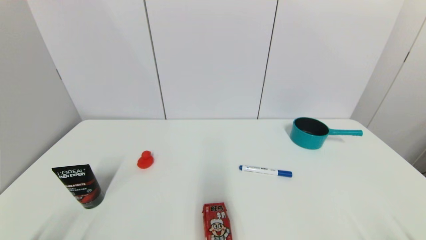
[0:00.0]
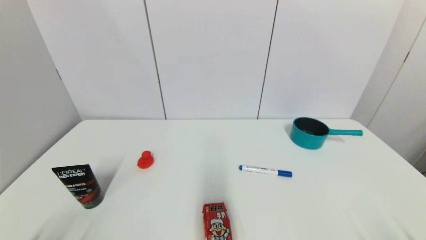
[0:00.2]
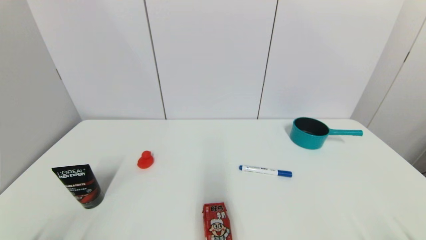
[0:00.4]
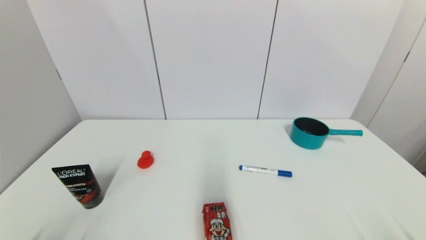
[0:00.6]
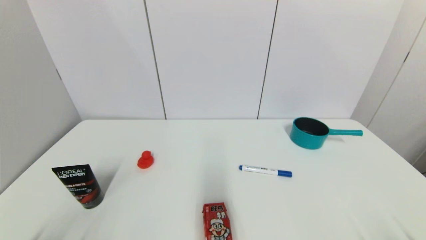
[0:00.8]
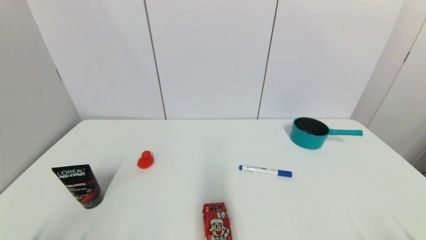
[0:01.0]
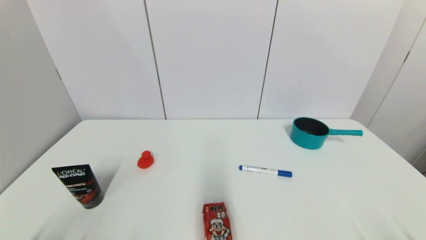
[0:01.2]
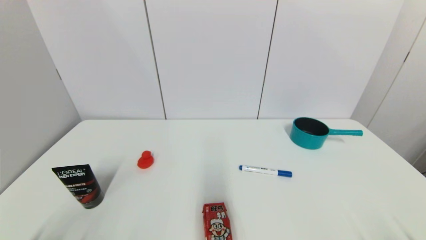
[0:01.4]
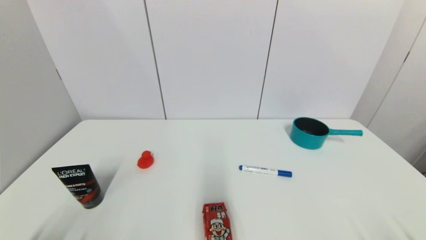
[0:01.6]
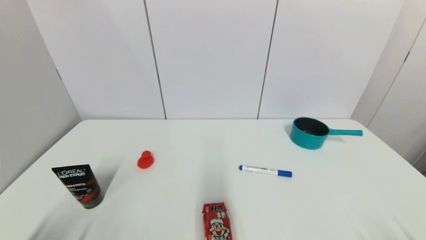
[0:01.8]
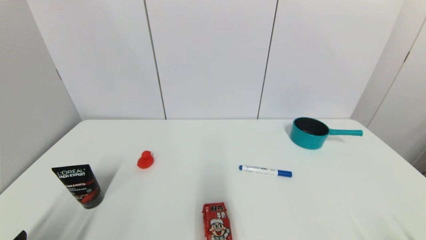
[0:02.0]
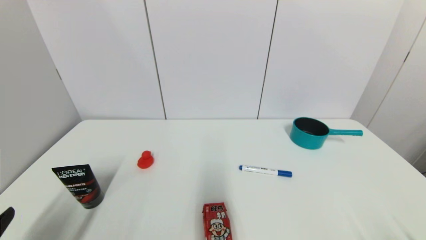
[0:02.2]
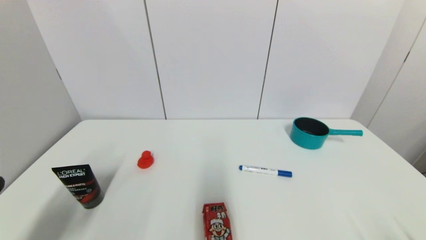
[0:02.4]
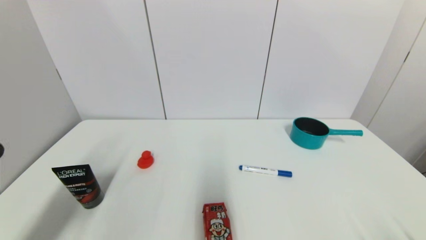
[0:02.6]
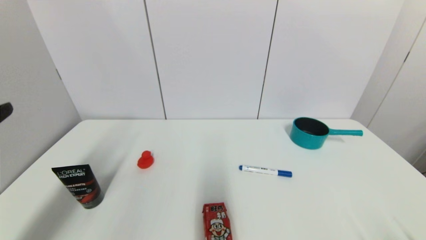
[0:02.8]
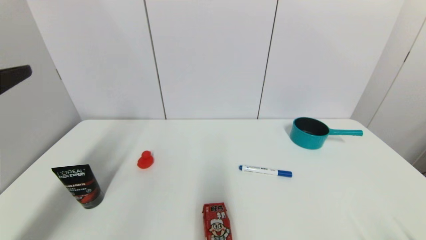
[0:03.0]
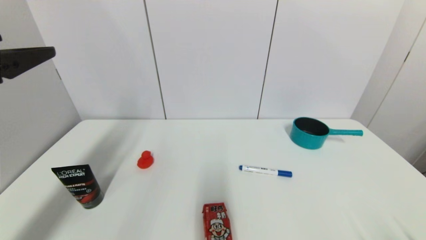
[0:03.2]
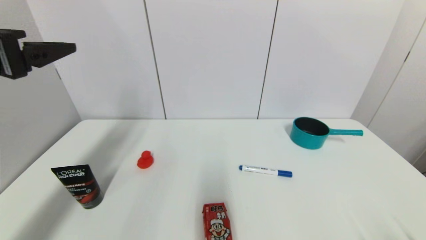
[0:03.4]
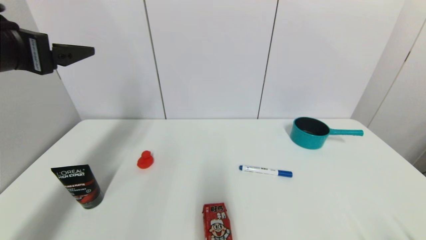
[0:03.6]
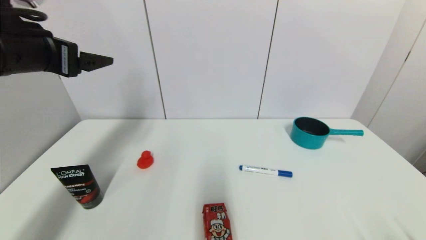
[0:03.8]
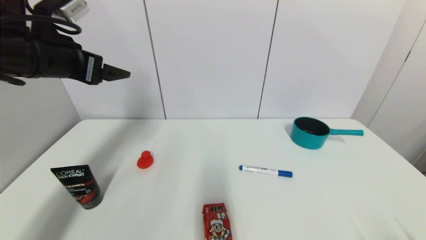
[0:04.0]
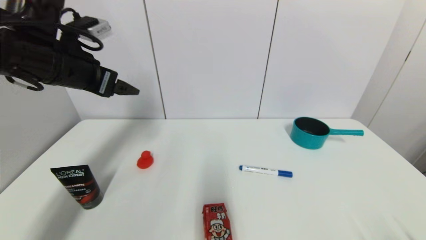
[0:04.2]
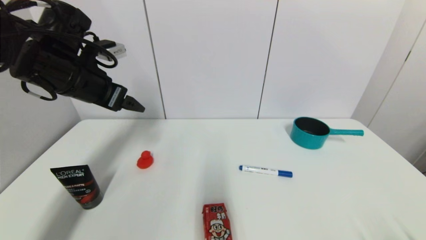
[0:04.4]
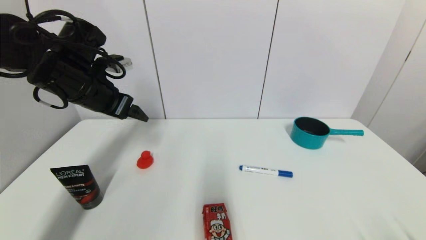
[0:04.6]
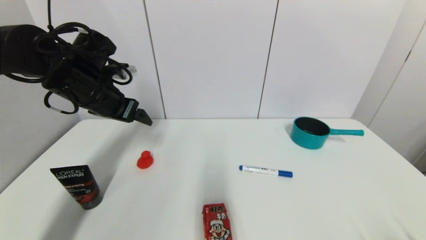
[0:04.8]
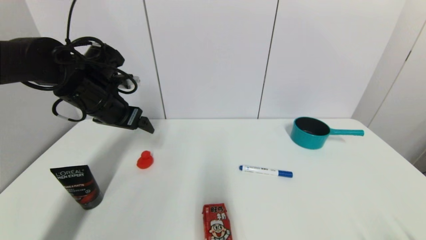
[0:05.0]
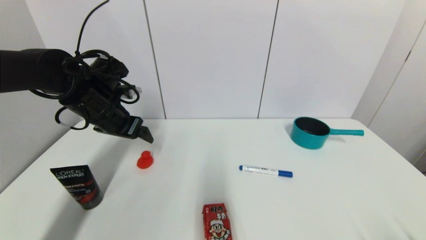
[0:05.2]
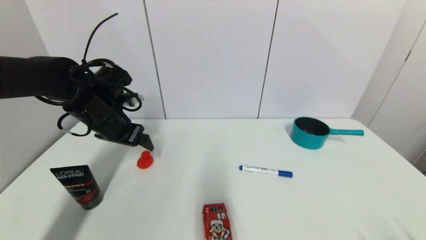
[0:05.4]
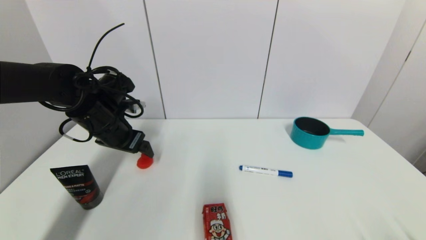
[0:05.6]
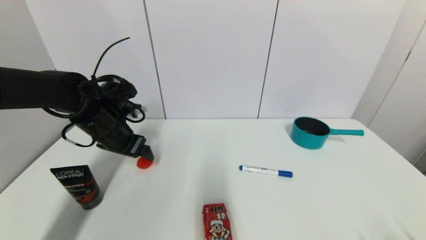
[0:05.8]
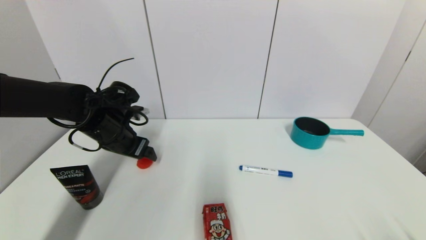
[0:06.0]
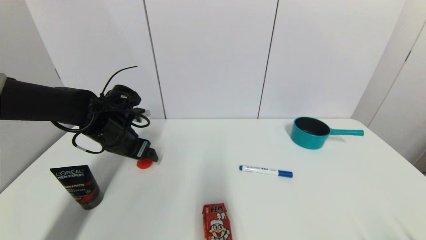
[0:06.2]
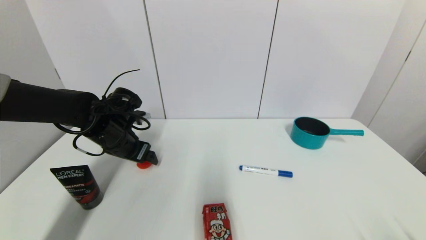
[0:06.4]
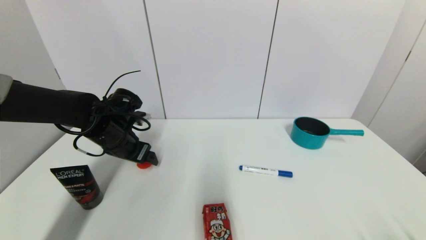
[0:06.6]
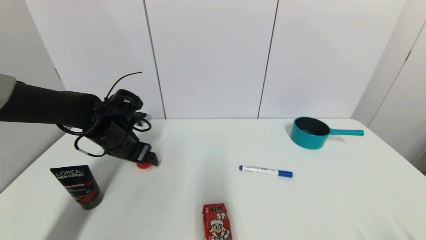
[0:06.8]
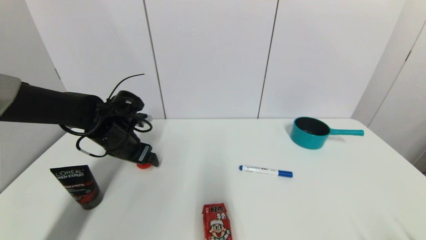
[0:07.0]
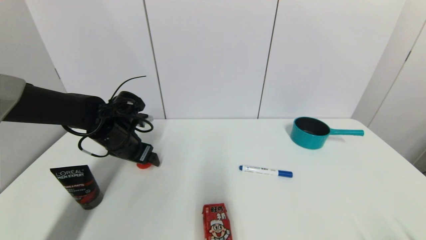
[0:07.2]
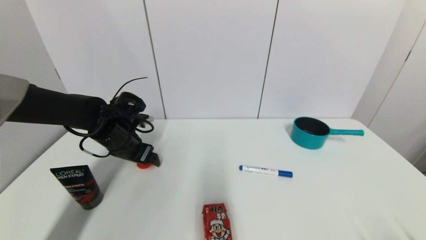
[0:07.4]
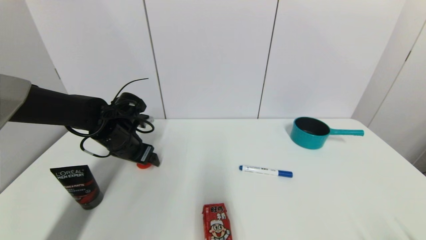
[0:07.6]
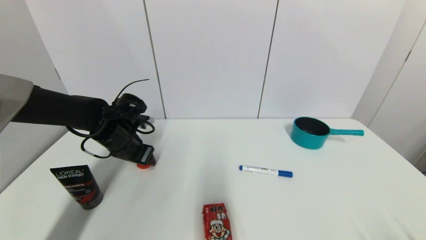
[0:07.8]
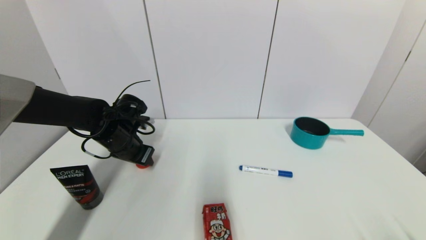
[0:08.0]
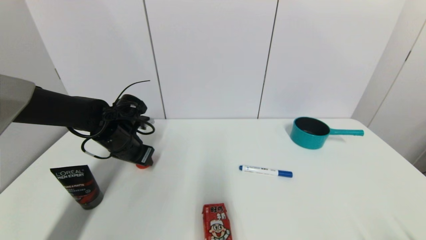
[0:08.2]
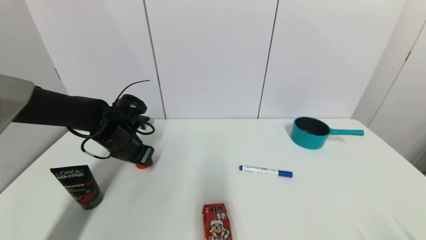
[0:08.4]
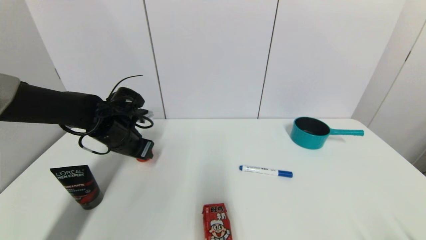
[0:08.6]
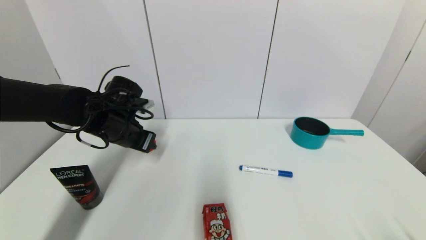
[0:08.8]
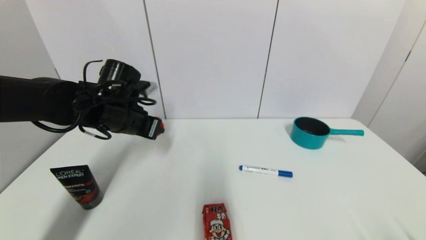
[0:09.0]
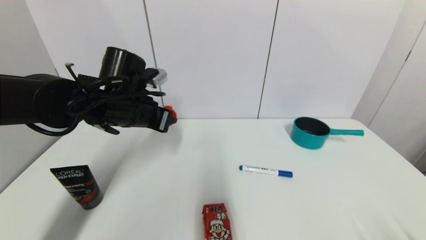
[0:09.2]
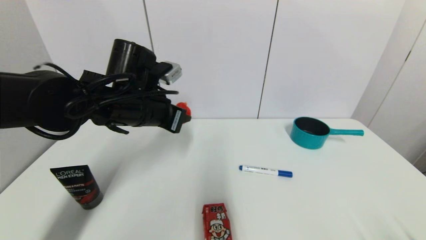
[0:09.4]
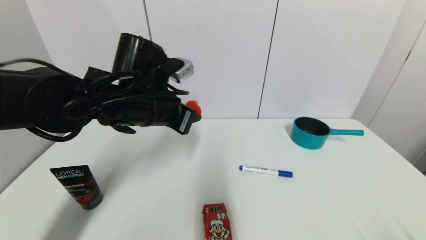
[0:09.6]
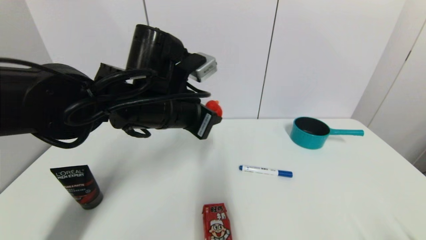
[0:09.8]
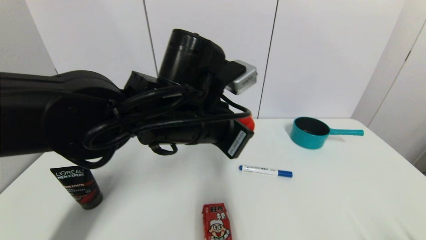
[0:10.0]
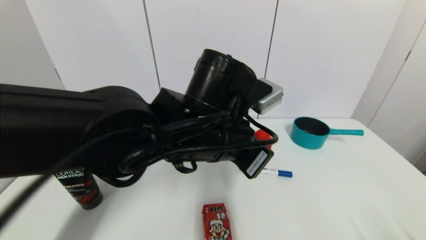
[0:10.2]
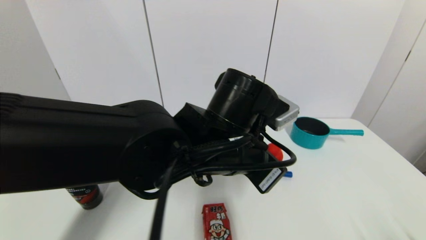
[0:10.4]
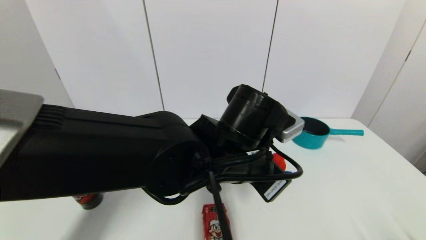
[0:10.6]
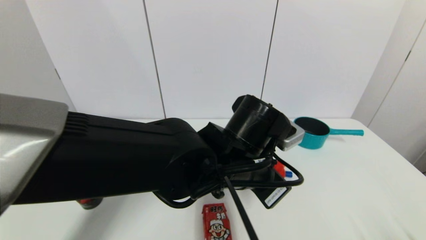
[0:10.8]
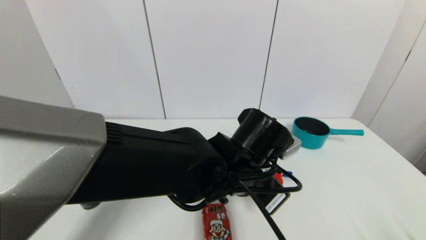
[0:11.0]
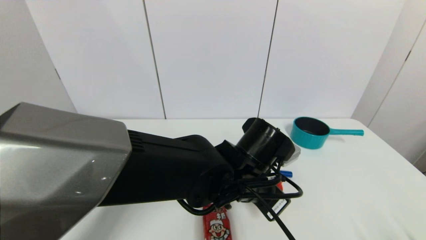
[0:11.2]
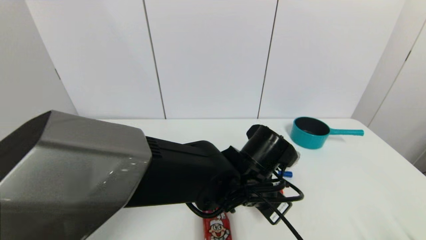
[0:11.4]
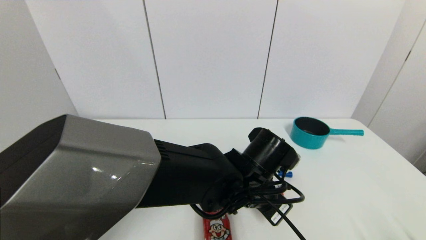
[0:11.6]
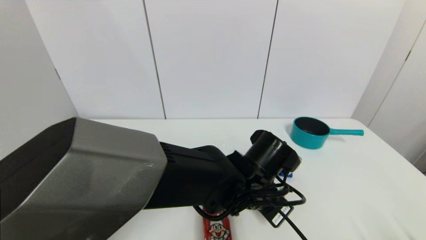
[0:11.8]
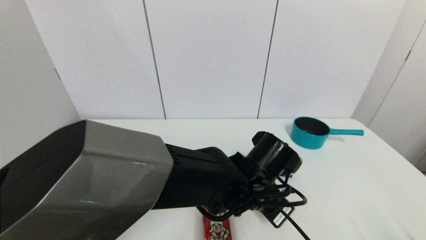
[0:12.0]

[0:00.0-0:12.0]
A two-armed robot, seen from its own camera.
Step, 0:02.0 to 0:08.8: Grasp the red duck with left gripper.
0:00.0 to 0:01.6: The two grippers keep their place.
0:01.6 to 0:03.0: The left gripper goes roughly 25 cm upward and forward.
0:03.0 to 0:04.4: The left gripper is displaced forward by approximately 20 cm.
0:04.4 to 0:06.0: The left gripper moves downward, roughly 15 cm.
0:06.0 to 0:07.6: The grippers move only a little.
0:07.6 to 0:09.0: The left gripper travels upward by roughly 5 cm, and closes up.
0:09.0 to 0:10.4: The left gripper is displaced to the right and backward by some 25 cm.
0:10.4 to 0:12.0: The left gripper is displaced downward and to the right by about 10 cm.

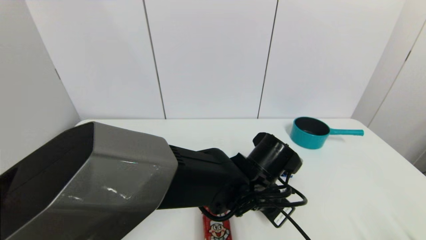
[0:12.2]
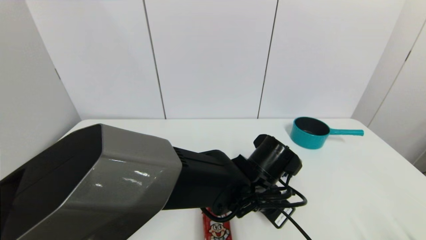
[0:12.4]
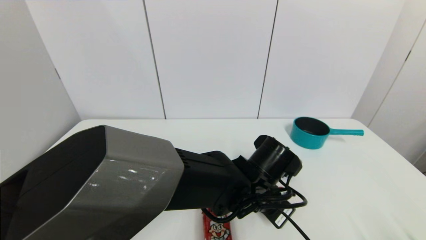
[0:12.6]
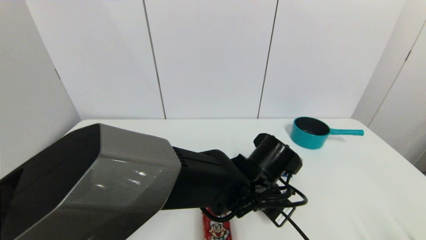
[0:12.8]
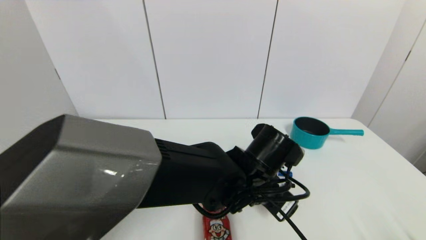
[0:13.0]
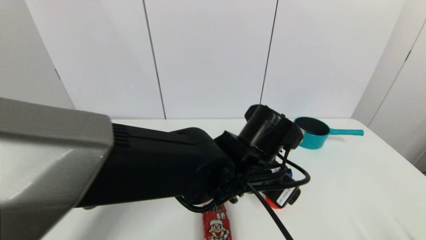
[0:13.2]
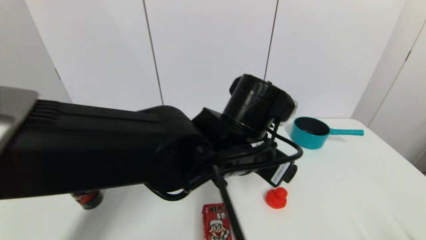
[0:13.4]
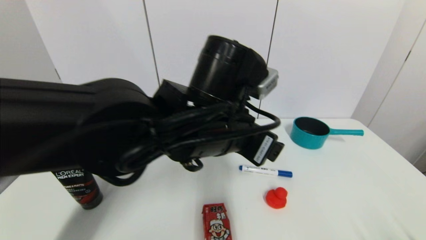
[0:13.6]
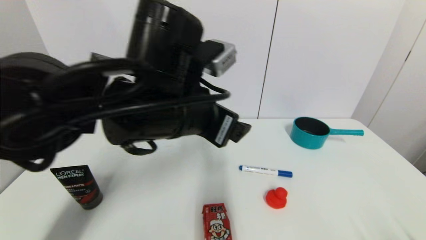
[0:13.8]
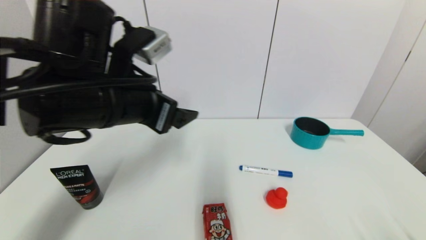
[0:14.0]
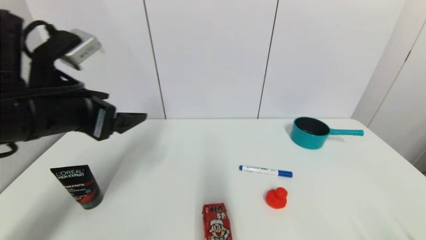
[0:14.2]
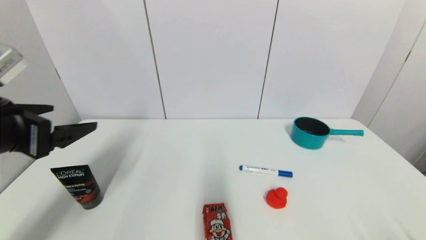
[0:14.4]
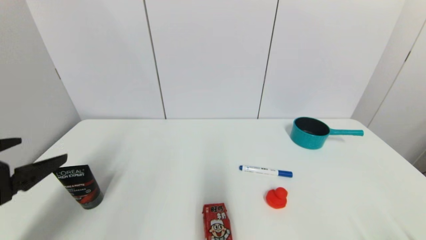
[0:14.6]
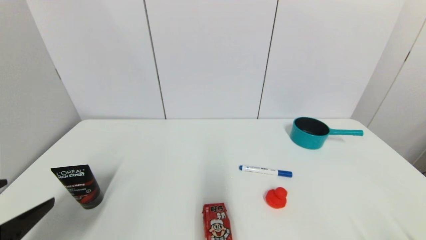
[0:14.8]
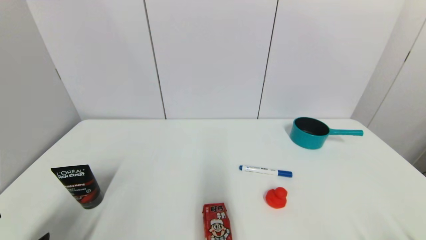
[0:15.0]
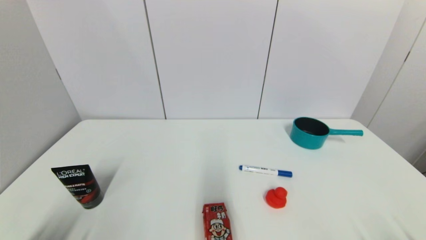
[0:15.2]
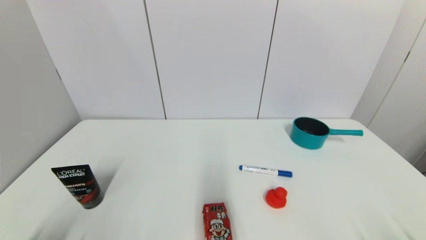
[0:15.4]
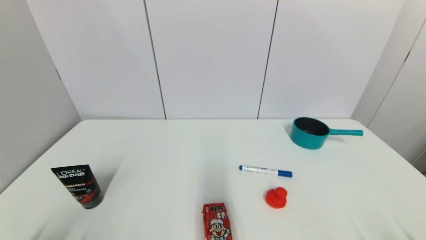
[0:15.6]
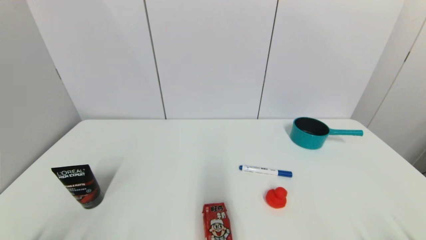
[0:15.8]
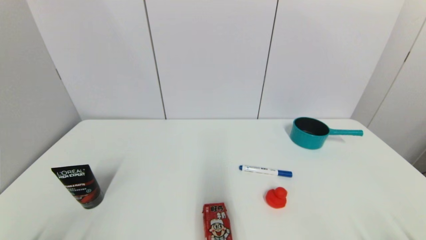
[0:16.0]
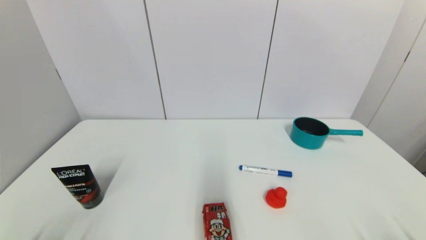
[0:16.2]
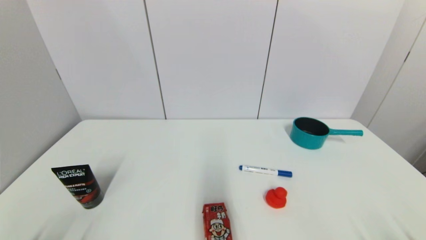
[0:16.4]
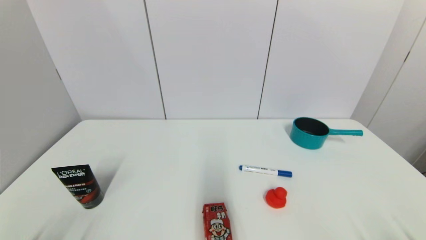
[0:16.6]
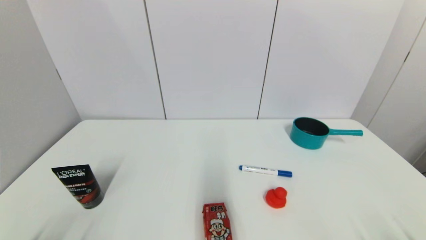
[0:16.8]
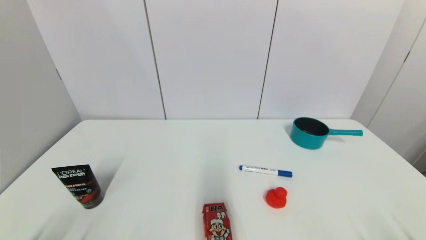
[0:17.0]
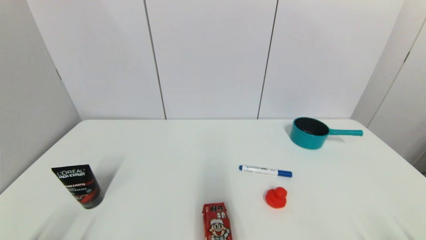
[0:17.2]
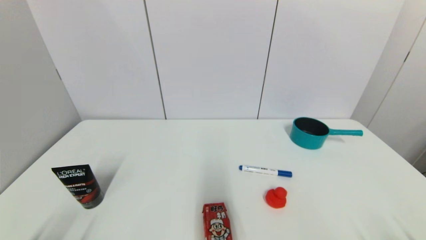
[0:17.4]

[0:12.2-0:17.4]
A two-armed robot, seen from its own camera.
0:12.2 to 0:14.0: The left gripper heads to the left and upward, covering approximately 30 cm, and opens up.
0:14.0 to 0:15.6: The left gripper is displaced backward, downward and to the left by some 35 cm.
